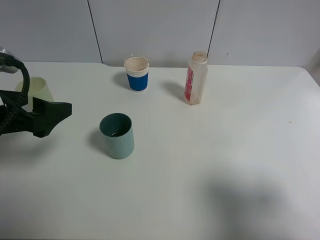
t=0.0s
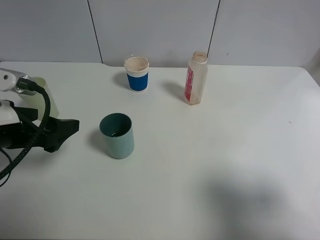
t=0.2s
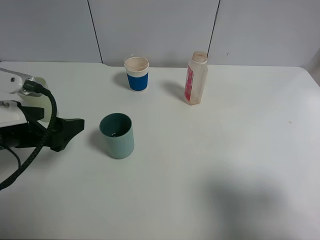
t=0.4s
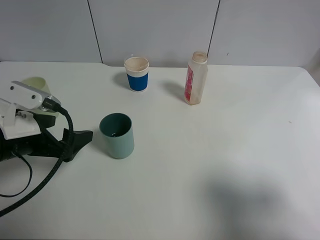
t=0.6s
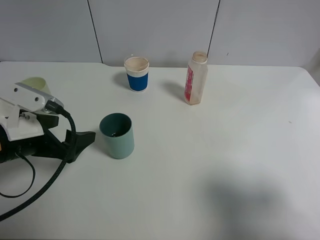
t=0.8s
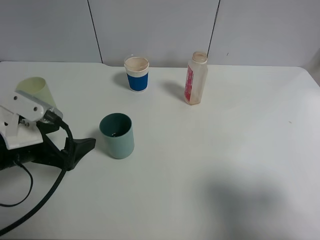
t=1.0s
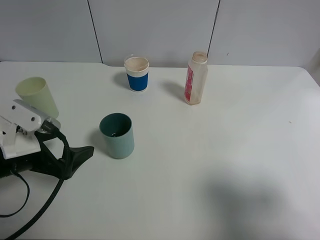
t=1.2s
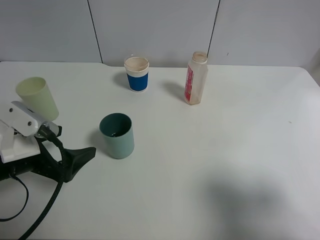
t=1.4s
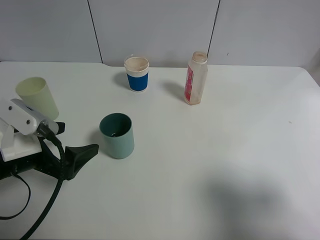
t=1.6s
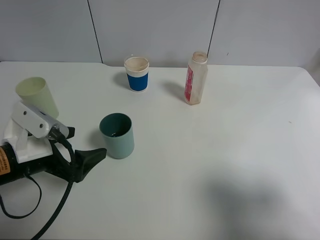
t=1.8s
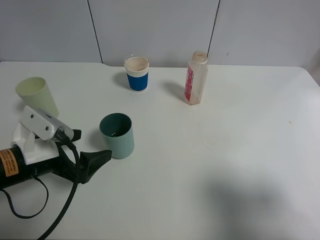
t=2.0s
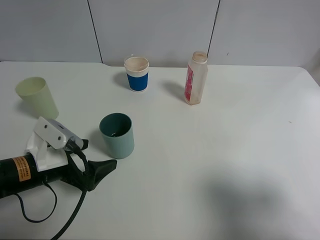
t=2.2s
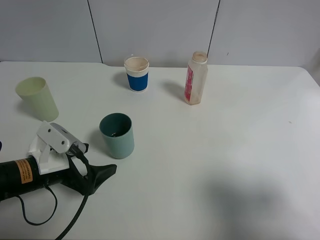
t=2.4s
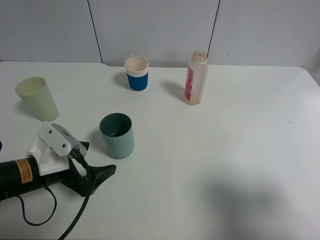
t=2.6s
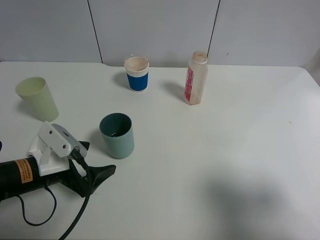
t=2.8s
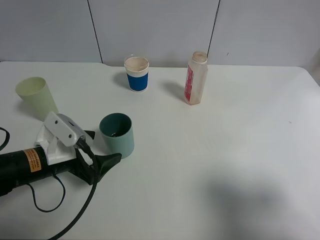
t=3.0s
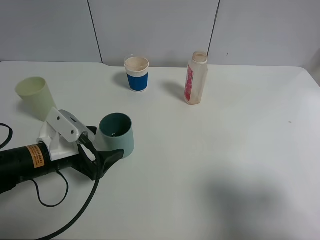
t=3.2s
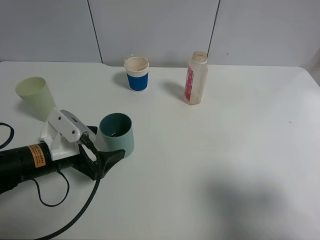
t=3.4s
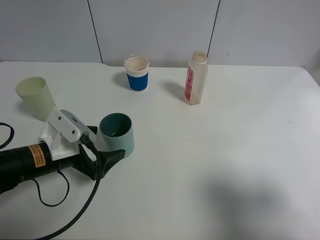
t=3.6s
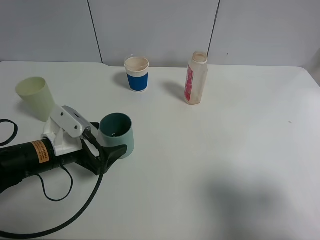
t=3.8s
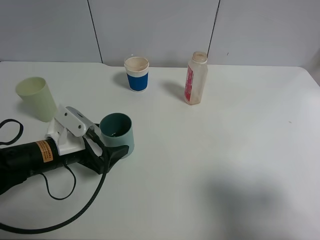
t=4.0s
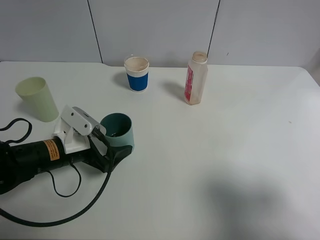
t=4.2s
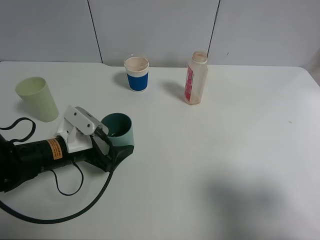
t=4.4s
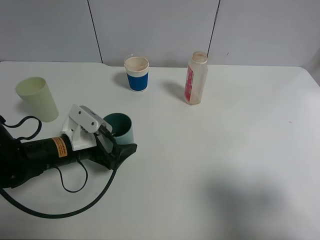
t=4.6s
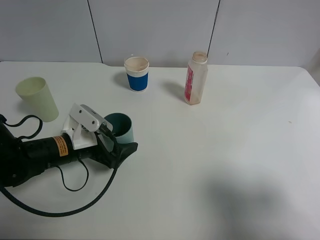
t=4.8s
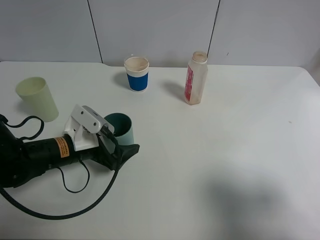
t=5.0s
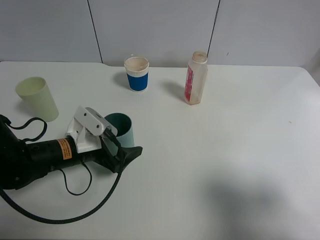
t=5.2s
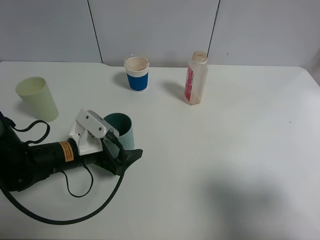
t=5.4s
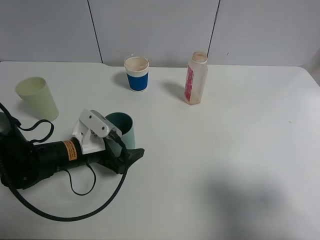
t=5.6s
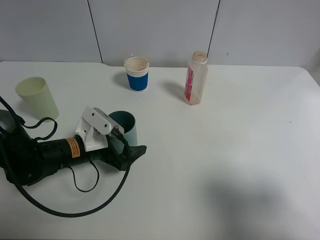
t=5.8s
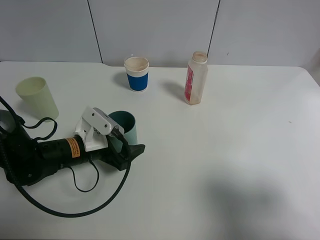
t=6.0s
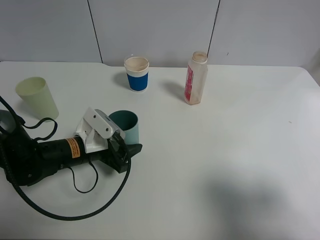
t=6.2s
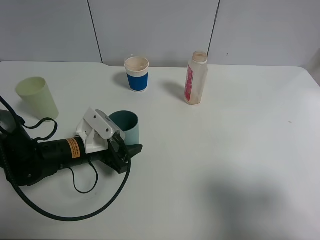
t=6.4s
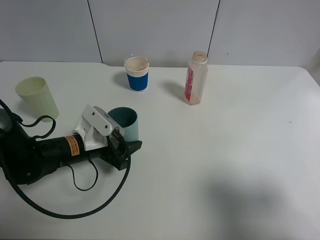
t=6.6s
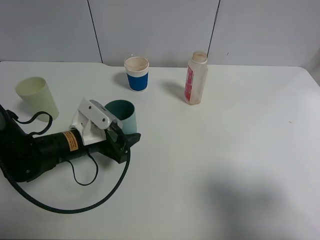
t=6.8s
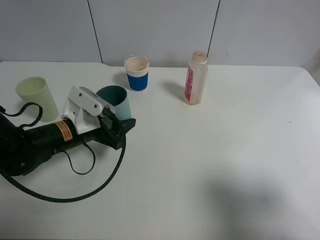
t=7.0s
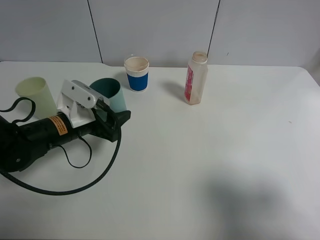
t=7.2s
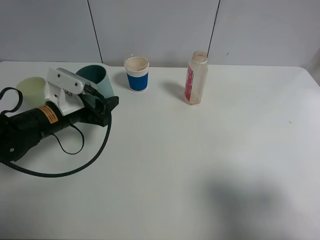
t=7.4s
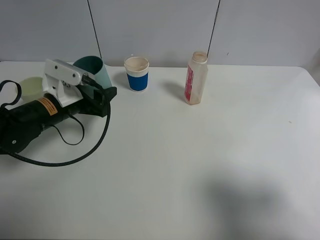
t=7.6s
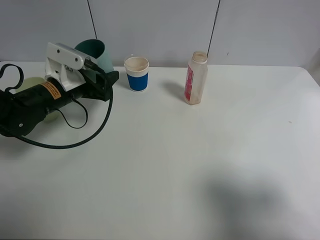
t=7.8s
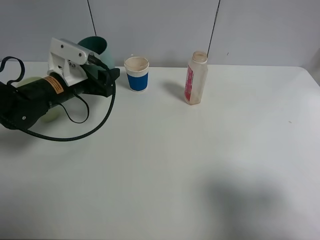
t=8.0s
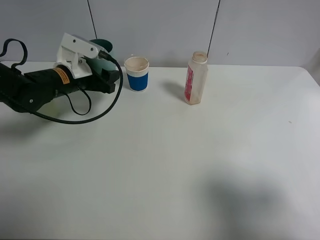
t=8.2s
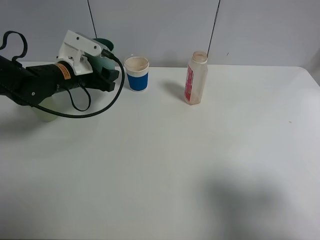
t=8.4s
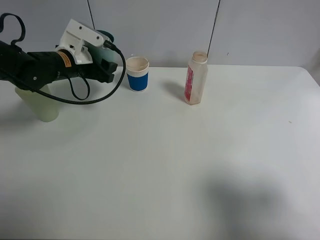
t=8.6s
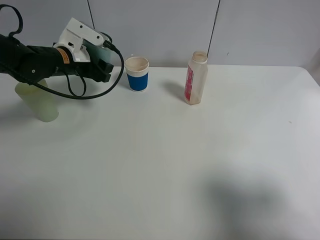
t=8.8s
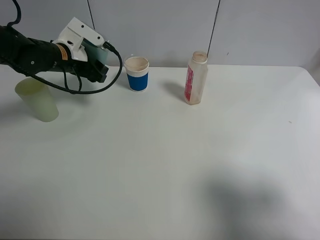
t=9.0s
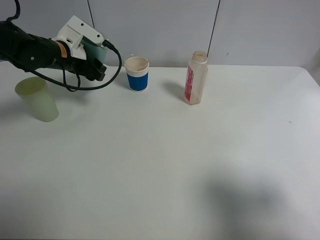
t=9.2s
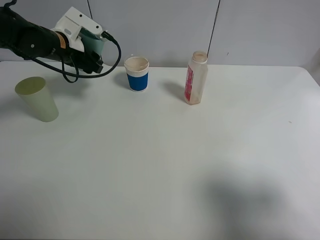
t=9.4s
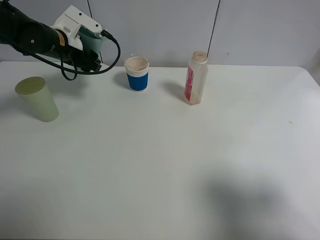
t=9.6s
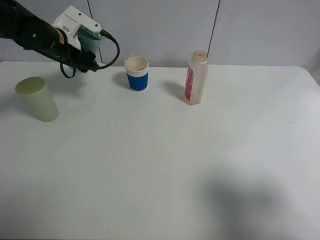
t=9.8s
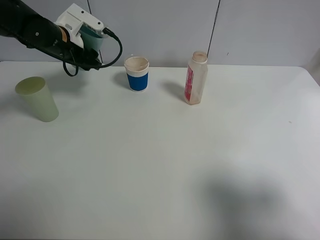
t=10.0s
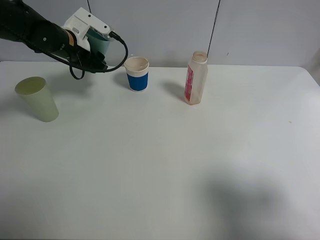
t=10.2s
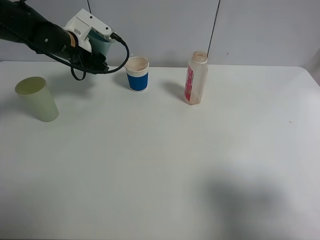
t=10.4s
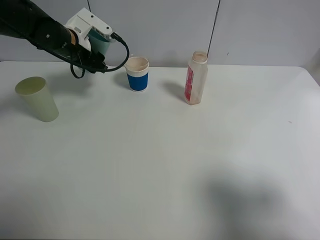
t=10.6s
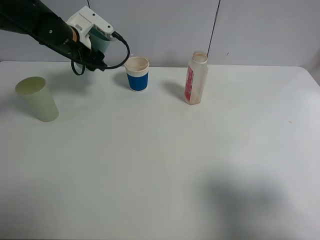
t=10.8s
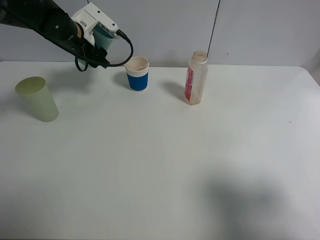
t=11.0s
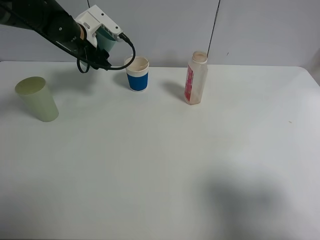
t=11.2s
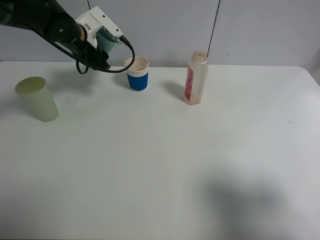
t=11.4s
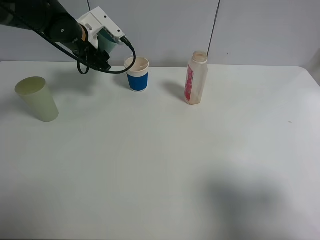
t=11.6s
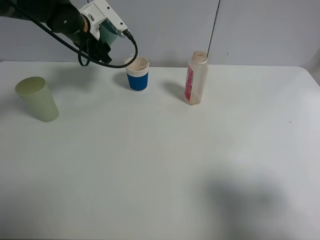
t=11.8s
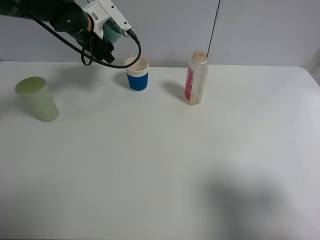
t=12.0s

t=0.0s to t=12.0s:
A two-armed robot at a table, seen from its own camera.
Task of the whole recording: use a clamp to hold the bottle of the drink, pour the beverage into a random cup, then clamp the cup containing the drink and pour the drink into another random cup.
Step, t=0.0s to t=6.8s: Pick up the blue plastic cup with left gripper.
t=0.0s to t=1.6s: The left gripper is displaced downward by about 5 cm.
t=1.6s to t=3.0s: The left gripper travels downward by some 5 cm.
t=3.0s to t=4.4s: There are only small adjustments of the grippers.
t=4.4s to t=6.0s: The left gripper closes its fingers.
t=6.0s to t=7.6s: The left gripper is displaced upward and forward by some 10 cm.
t=7.6s to t=9.0s: The left gripper travels forward by roughly 10 cm.
t=9.0s to t=10.4s: There are only small adjustments of the grippers.
t=10.4s to t=12.0s: The left gripper ends up approximately 5 cm from where it was.

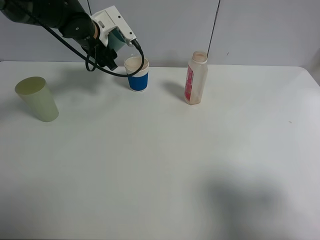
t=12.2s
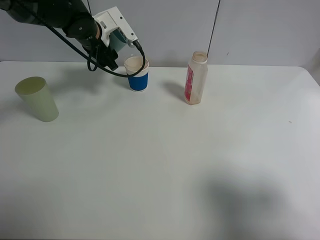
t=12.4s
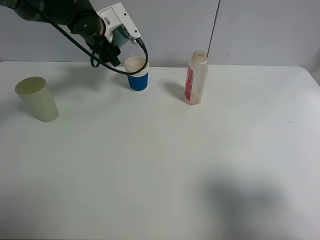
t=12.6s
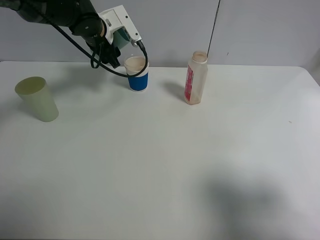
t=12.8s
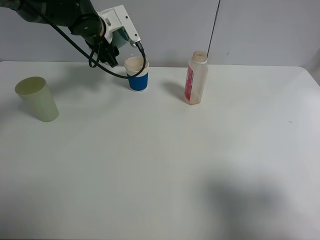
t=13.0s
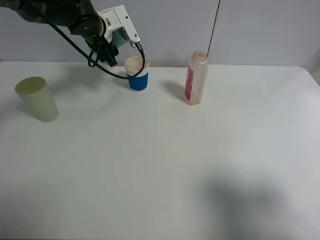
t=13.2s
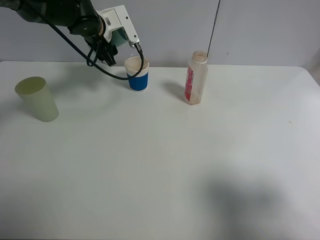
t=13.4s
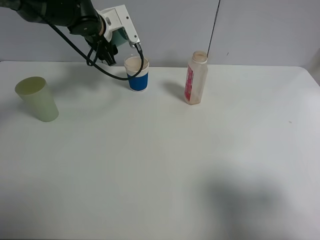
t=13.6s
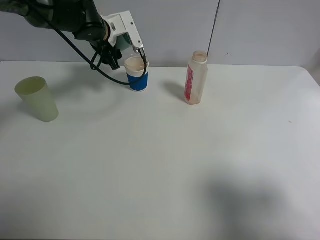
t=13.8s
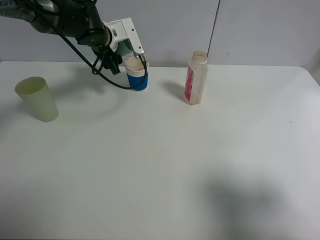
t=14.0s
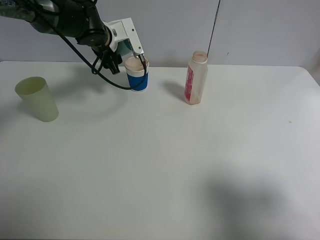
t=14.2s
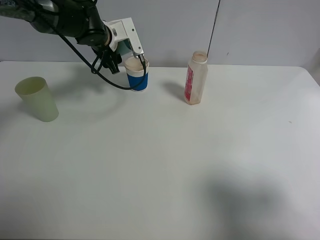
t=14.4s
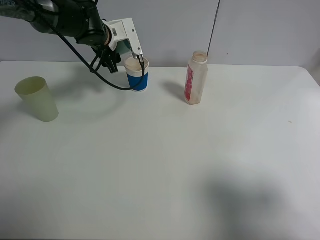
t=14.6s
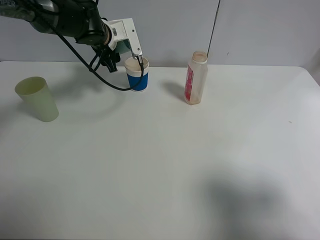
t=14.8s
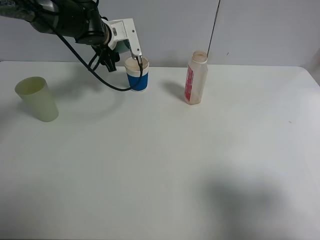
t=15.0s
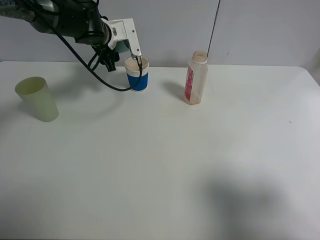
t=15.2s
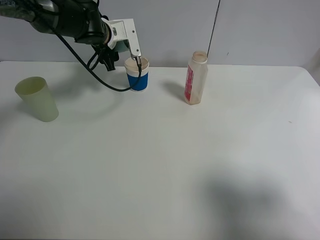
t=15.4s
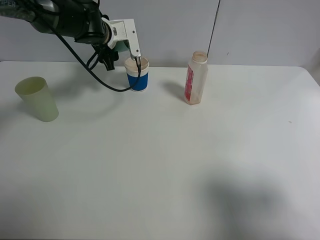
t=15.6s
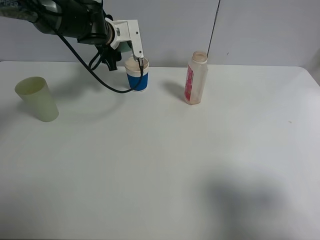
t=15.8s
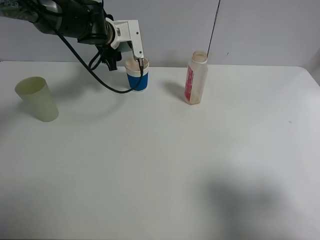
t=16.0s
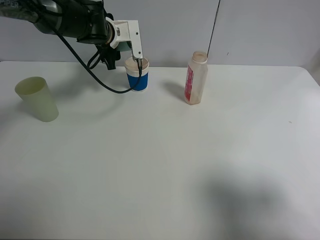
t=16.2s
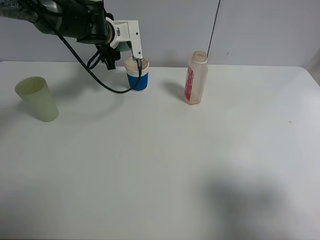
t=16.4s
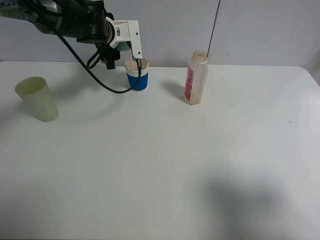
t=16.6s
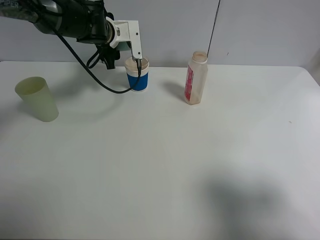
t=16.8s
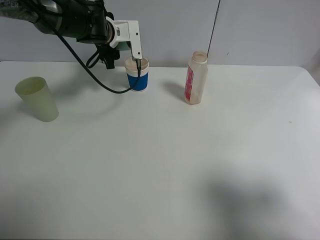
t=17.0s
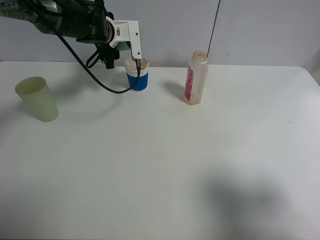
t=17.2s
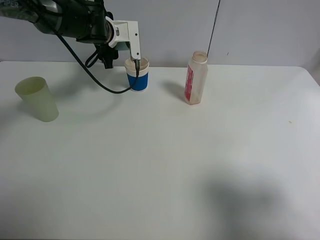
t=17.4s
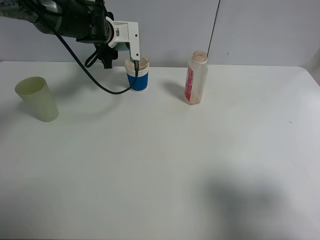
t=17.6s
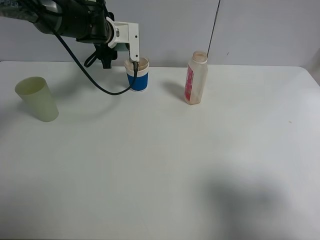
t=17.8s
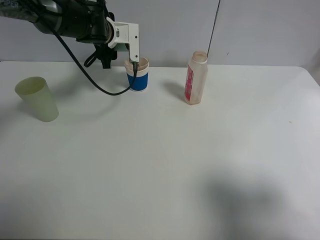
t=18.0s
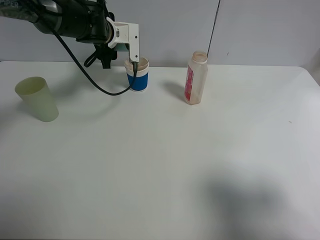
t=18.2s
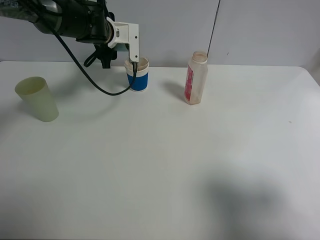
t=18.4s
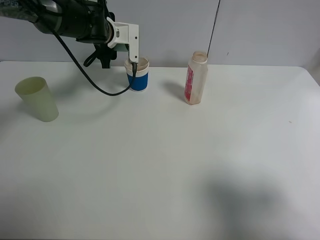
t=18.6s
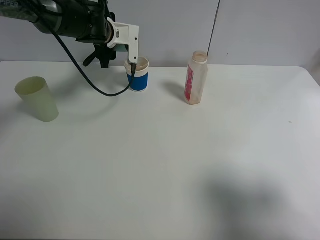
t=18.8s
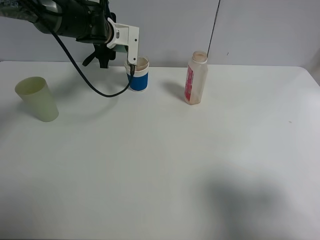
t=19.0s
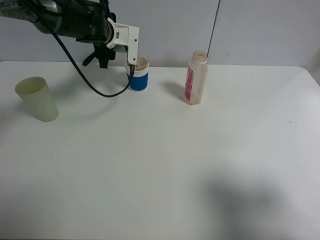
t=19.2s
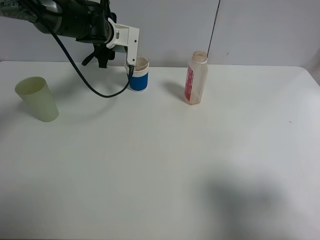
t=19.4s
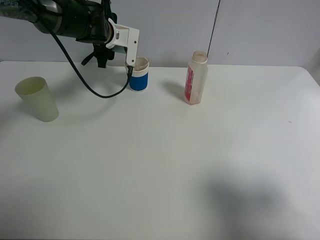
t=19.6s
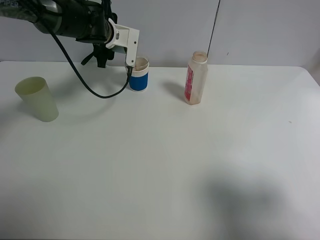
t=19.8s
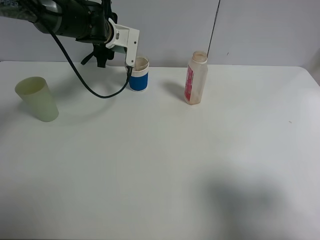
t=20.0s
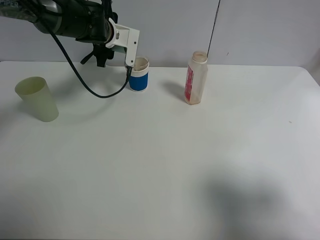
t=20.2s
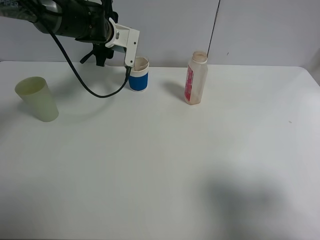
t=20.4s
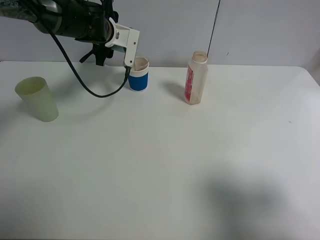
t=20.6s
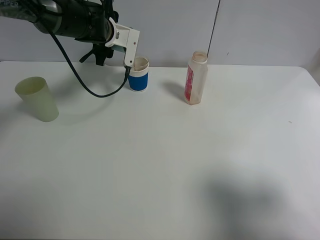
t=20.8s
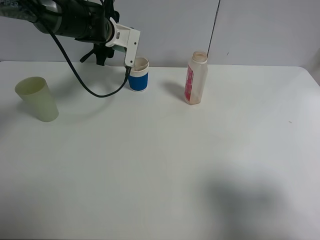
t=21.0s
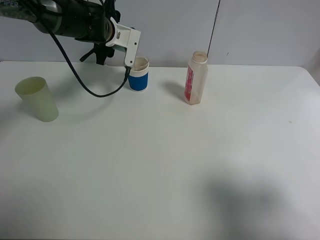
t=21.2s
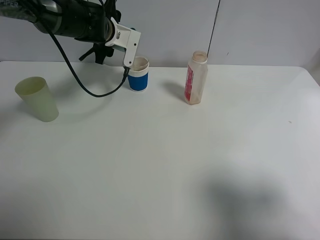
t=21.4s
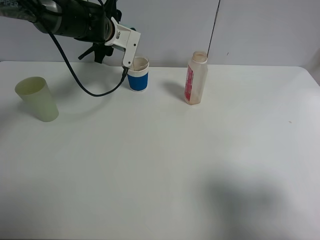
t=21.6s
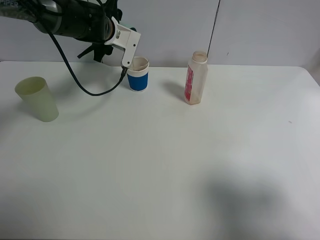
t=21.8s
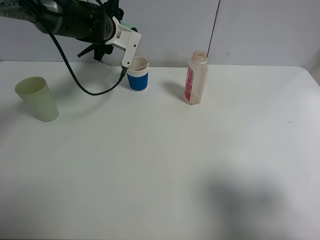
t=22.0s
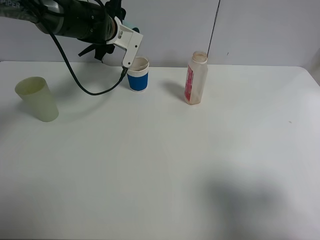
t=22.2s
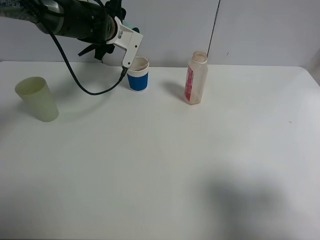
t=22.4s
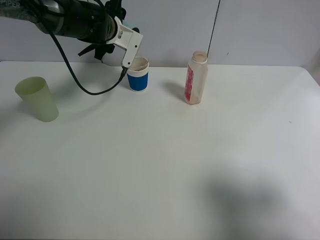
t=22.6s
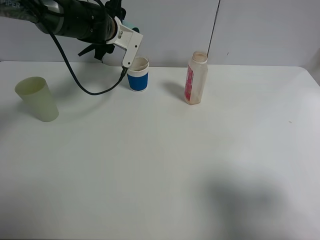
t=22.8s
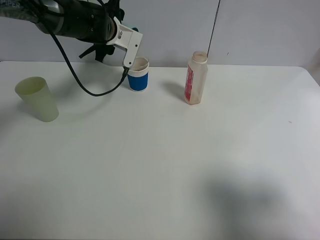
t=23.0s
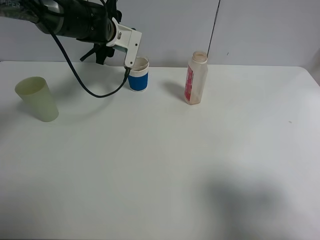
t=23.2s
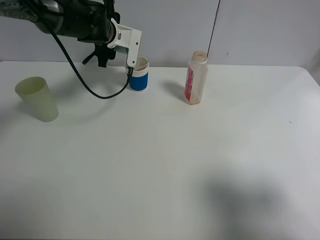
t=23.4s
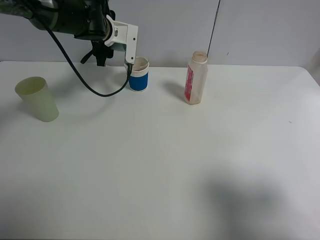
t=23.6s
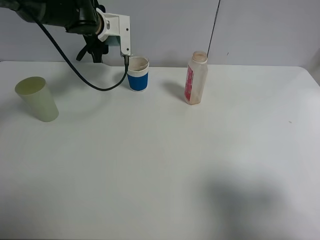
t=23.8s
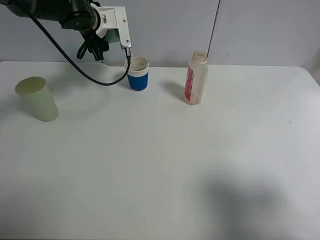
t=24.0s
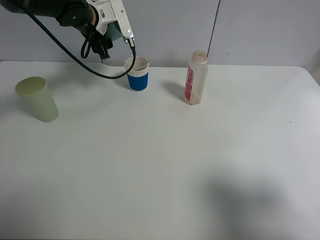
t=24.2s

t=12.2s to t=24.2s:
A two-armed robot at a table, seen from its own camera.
Task of the whole recording: use a clamp to hold the bottle of the drink, pour the beverage into a random cup, then clamp the cup containing the drink and pour the drink into another random cup.
Step, t=12.2s to t=23.6s: Pour the drink into the paper cup with left gripper.
t=12.2s to t=13.8s: There are only small adjustments of the grippers.
t=13.8s to t=16.6s: The grippers move only a little.
t=16.6s to t=19.8s: The grippers stay close to where they were, moving slightly.
t=19.8s to t=22.6s: The grippers stay close to where they were, moving slightly.
